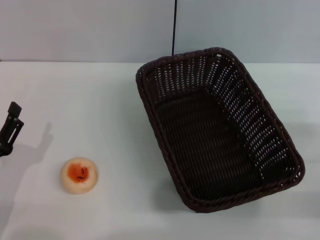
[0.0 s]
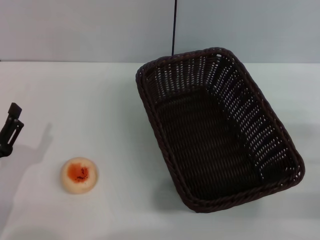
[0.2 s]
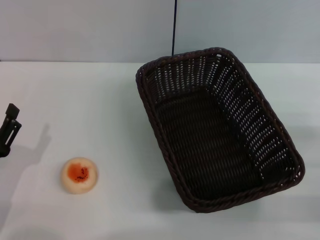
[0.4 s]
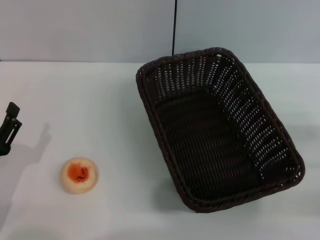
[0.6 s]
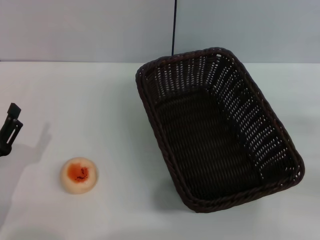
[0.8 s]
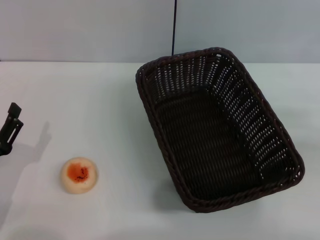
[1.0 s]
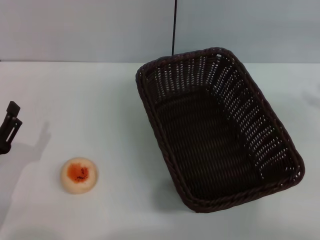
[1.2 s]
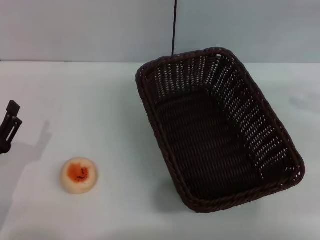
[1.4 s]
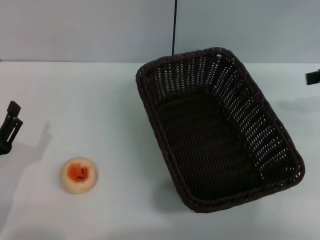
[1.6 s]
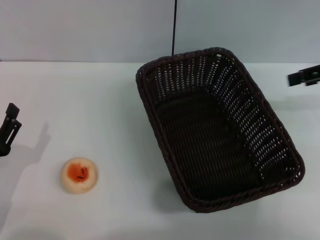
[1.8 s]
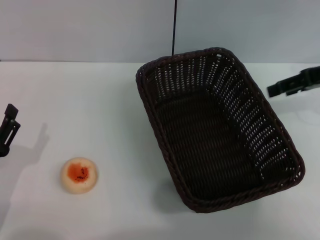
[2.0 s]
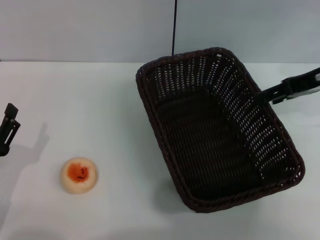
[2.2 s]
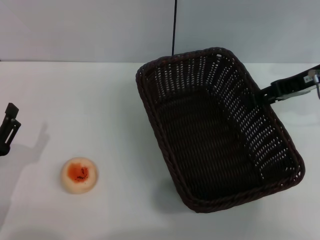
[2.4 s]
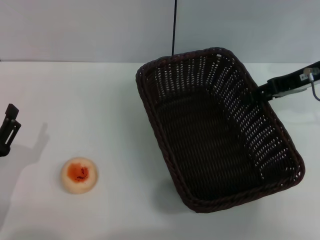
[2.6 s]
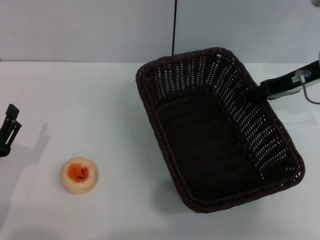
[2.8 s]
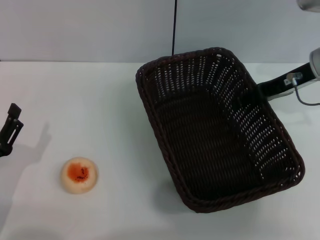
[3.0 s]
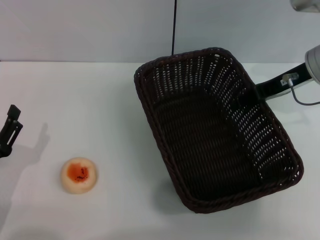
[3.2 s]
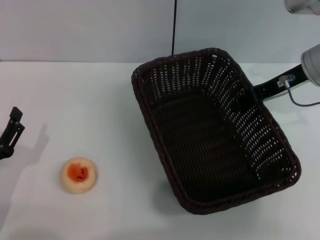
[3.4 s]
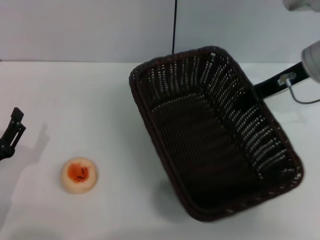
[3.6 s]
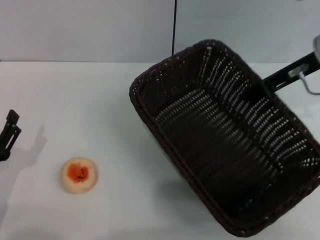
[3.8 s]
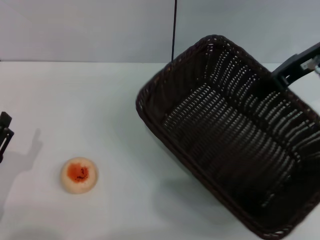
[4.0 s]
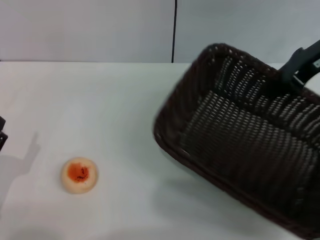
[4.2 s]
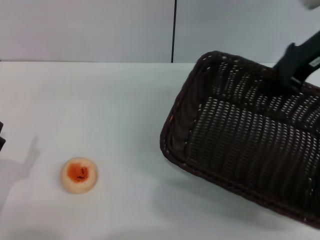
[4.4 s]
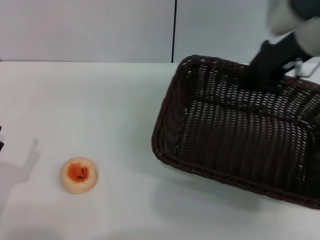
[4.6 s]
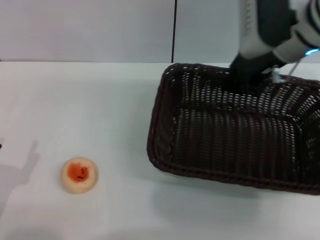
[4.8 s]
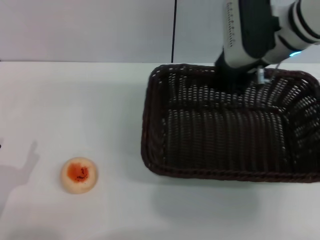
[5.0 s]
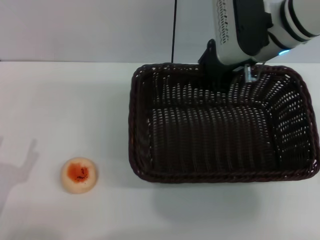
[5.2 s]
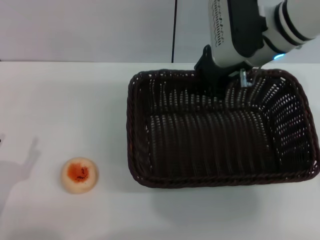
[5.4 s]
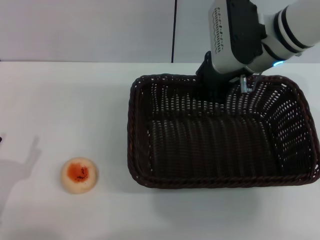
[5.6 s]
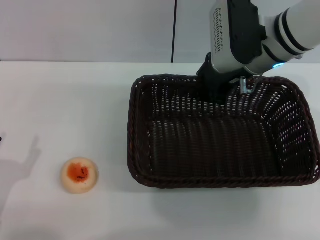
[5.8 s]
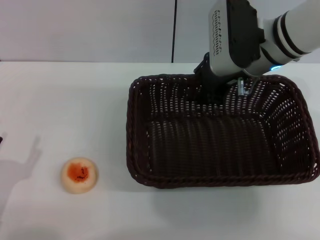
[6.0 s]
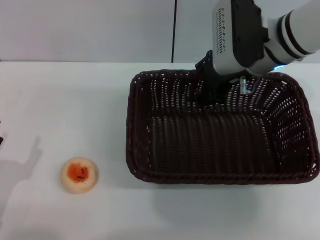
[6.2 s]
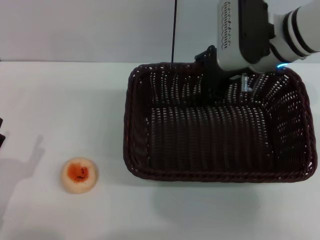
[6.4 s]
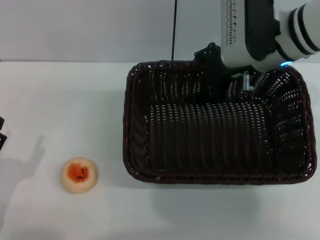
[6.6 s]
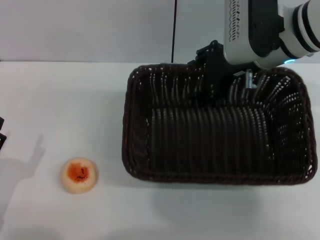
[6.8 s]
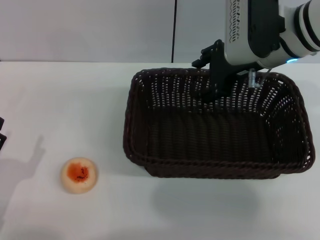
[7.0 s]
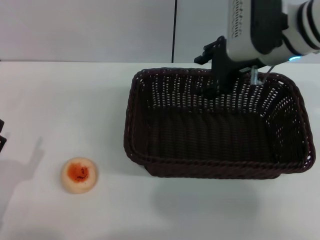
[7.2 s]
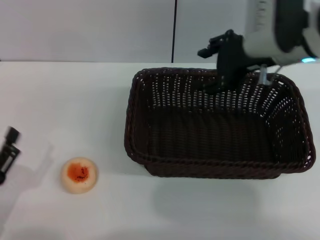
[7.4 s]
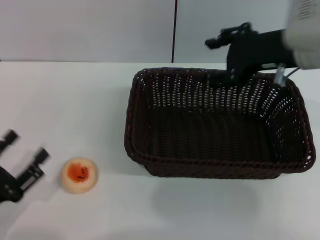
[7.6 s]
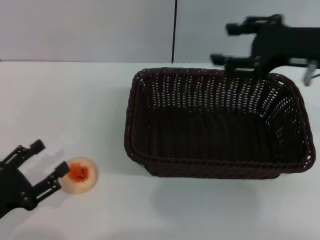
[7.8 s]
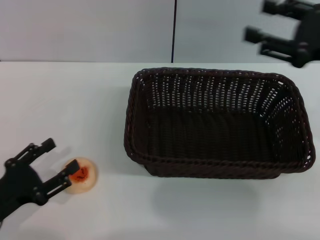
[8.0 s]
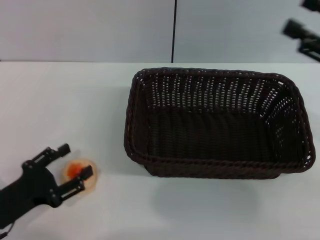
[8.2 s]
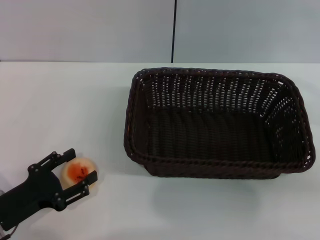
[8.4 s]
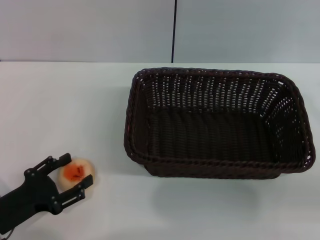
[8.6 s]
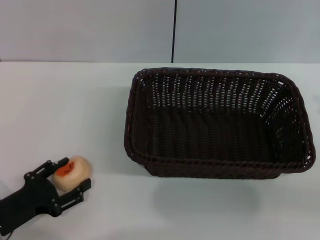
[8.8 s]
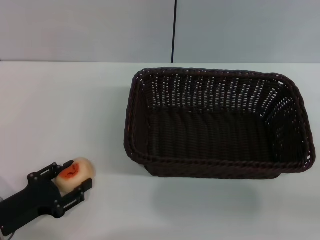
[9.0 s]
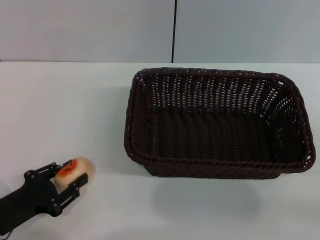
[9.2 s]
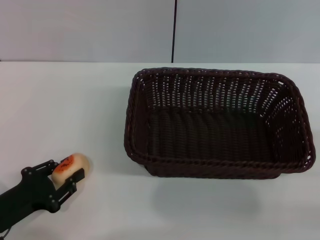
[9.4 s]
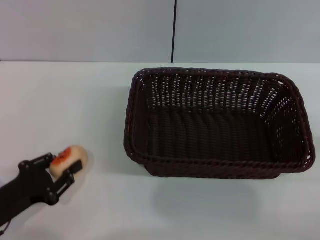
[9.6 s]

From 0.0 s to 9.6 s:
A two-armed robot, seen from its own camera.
Step, from 0.0 s to 7.2 s: Move the basket to the center of view with the right gripper.
From 0.0 s to 1.6 s: The right gripper is displaced upward and forward by about 20 cm.
From 1.6 s to 3.2 s: The right gripper shifts some 15 cm to the left and downward.
From 3.2 s to 4.8 s: The right gripper shifts approximately 5 cm to the left, and closes up.
From 4.8 s to 6.4 s: The right gripper opens up.
From 6.4 s to 8.0 s: The right gripper is displaced to the right and backward by about 15 cm, and opens up.
From 8.0 s to 9.6 s: The left gripper closes up. Meanwhile the right gripper goes approximately 20 cm downward, backward and to the right.

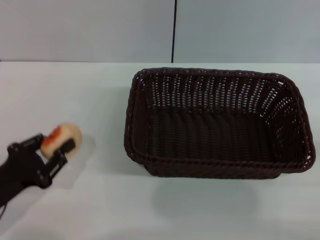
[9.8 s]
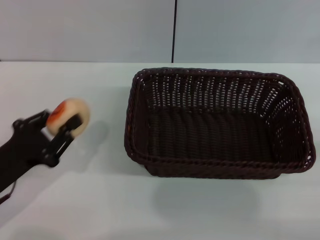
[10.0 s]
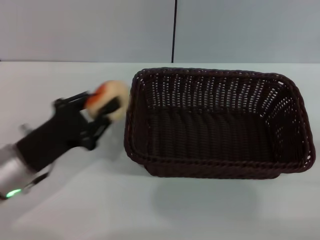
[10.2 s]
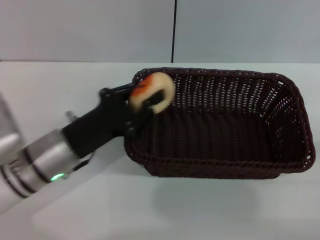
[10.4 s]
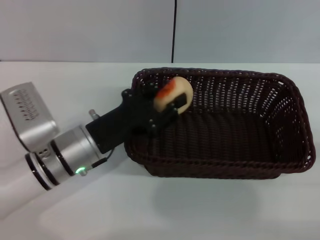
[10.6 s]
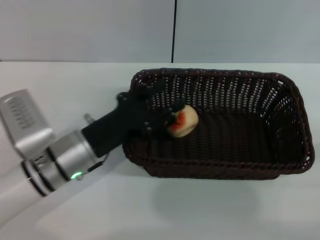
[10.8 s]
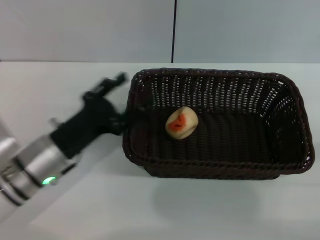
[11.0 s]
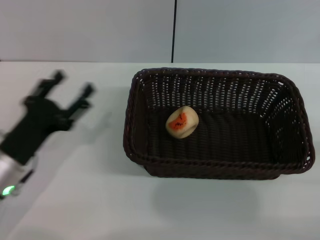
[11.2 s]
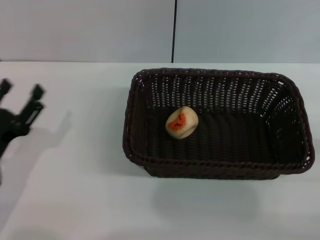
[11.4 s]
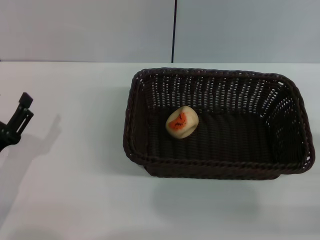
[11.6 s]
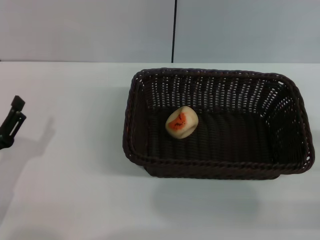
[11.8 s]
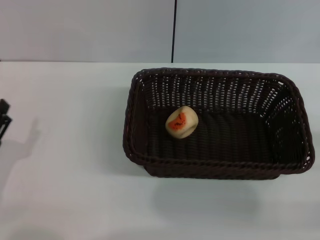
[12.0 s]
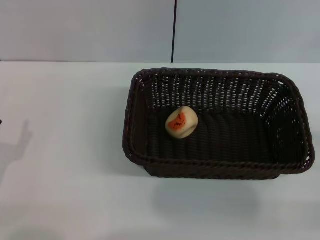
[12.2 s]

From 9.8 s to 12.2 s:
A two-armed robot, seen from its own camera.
Step, from 10.0 s to 11.0 s: Place the egg yolk pastry into the basket with the left gripper.
From 9.8 s to 11.0 s: The left gripper heads to the right and forward, covering roughly 10 cm, and opens its fingers.
From 11.0 s to 12.2 s: The left gripper goes about 15 cm to the left and backward, and opens.
